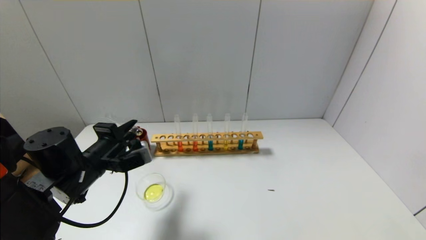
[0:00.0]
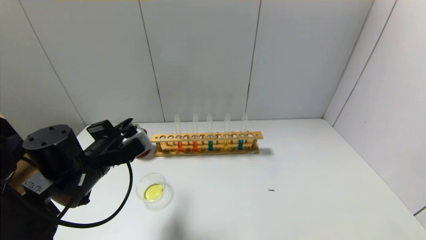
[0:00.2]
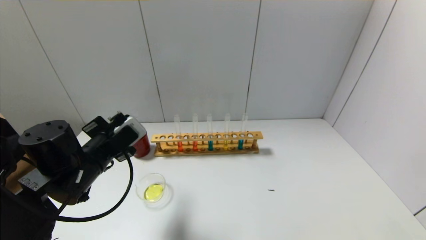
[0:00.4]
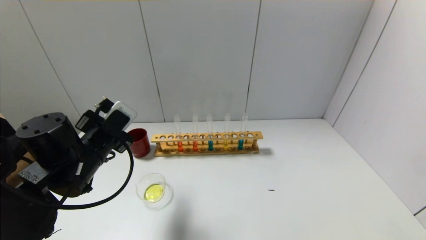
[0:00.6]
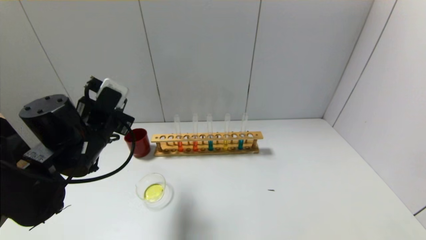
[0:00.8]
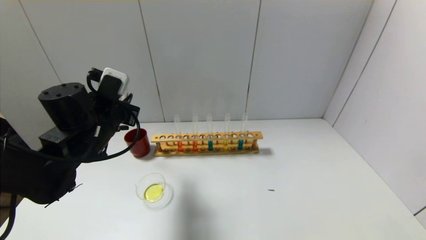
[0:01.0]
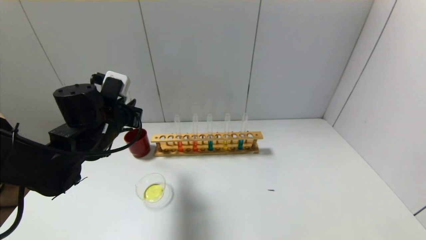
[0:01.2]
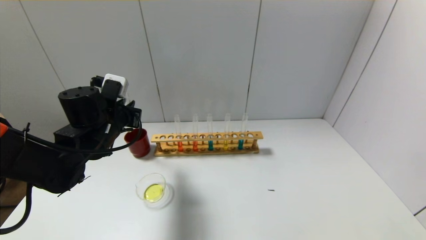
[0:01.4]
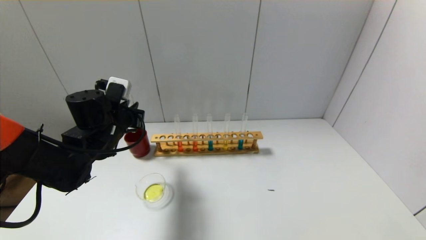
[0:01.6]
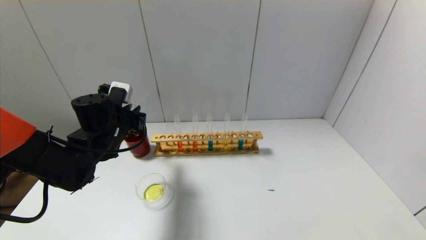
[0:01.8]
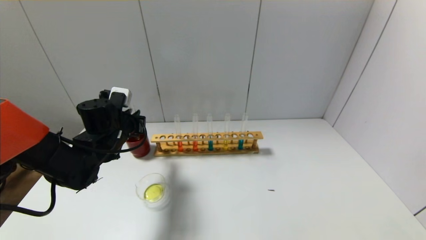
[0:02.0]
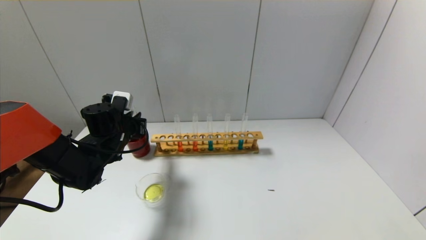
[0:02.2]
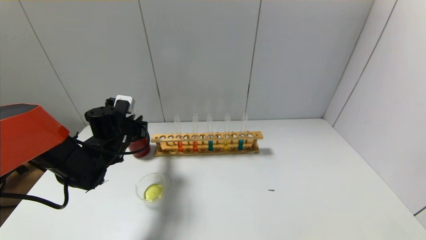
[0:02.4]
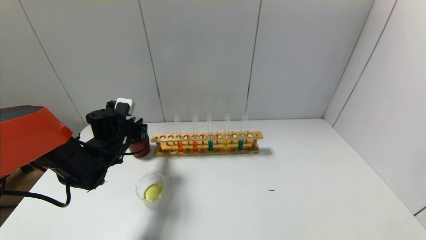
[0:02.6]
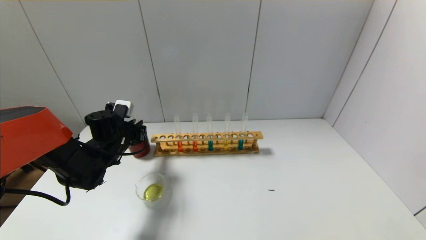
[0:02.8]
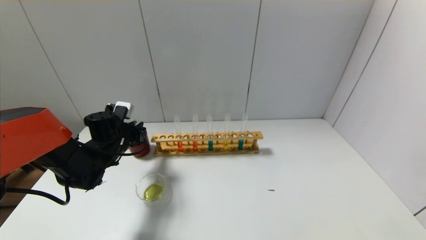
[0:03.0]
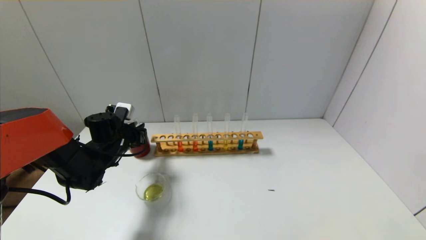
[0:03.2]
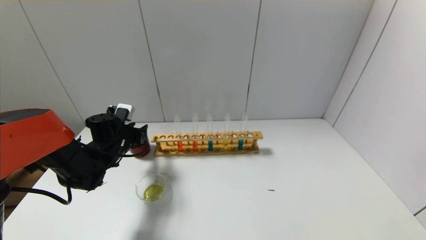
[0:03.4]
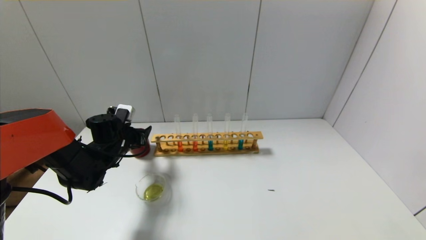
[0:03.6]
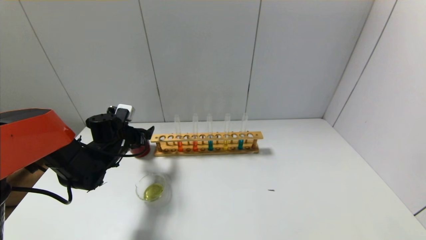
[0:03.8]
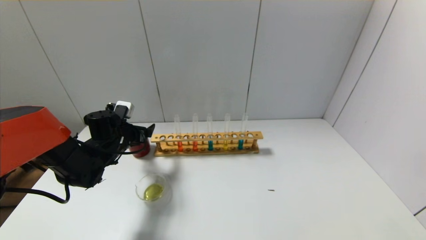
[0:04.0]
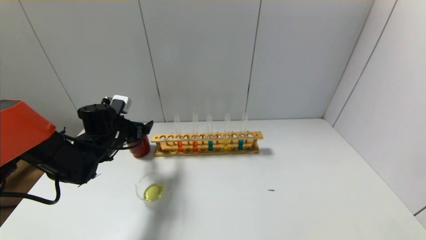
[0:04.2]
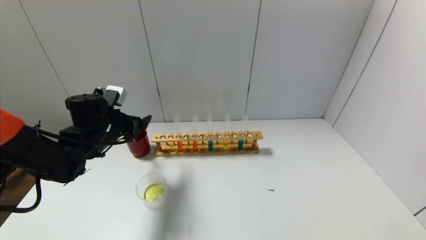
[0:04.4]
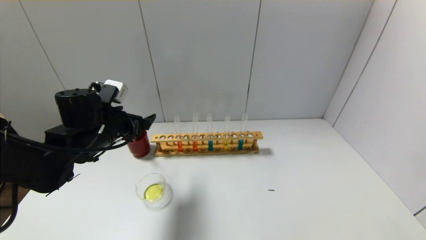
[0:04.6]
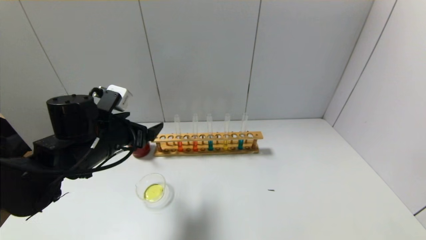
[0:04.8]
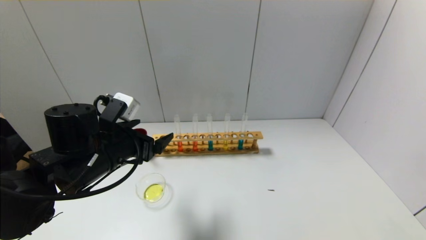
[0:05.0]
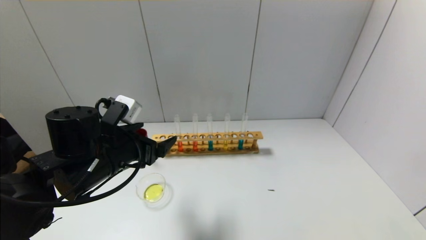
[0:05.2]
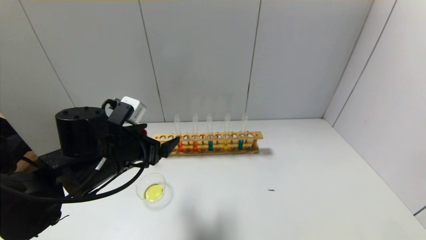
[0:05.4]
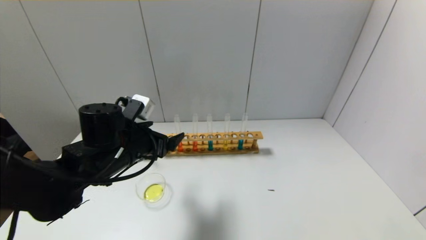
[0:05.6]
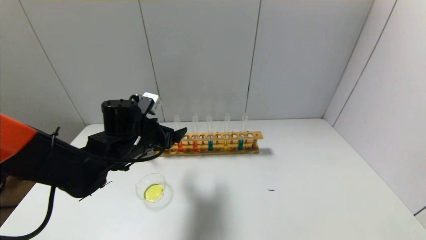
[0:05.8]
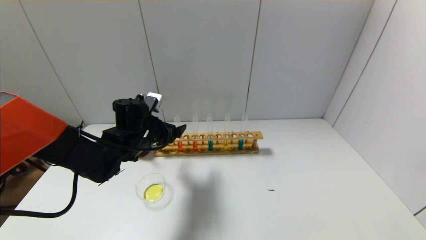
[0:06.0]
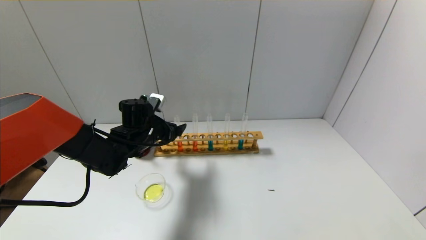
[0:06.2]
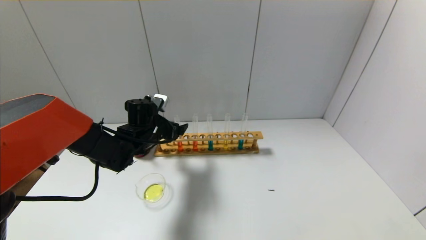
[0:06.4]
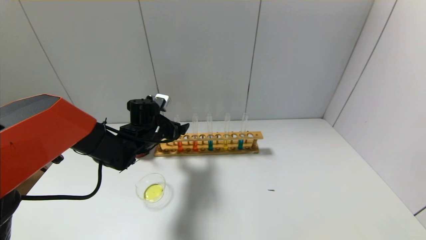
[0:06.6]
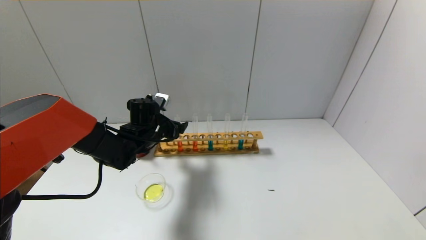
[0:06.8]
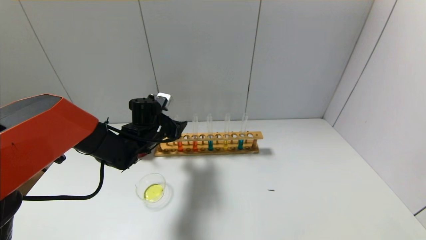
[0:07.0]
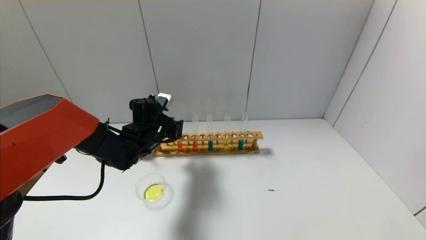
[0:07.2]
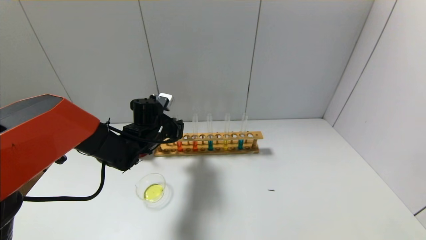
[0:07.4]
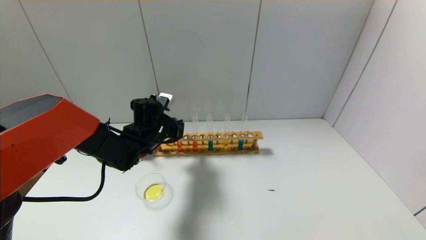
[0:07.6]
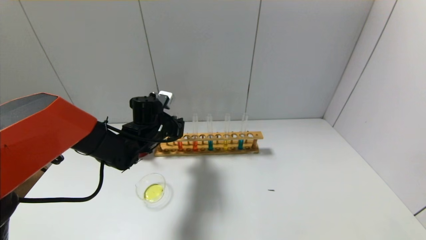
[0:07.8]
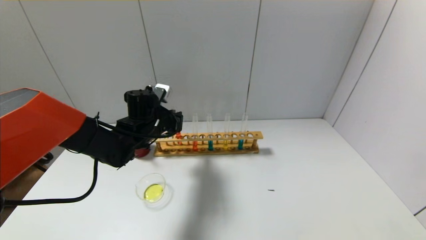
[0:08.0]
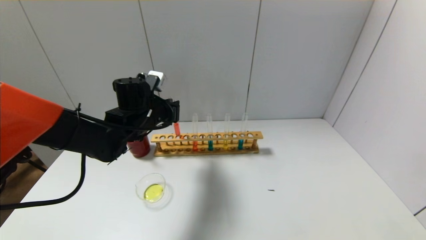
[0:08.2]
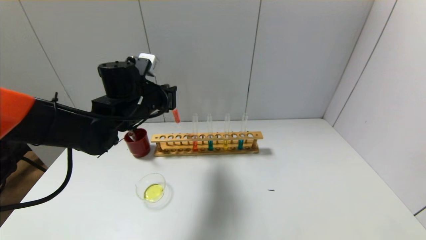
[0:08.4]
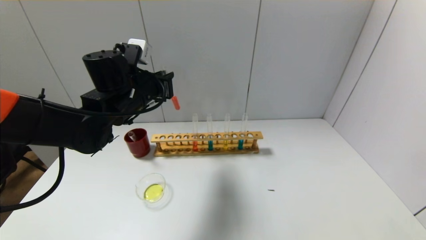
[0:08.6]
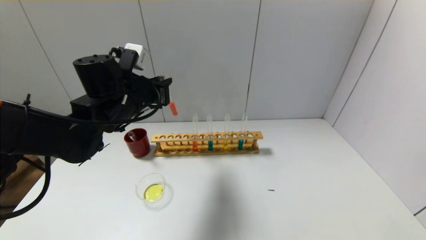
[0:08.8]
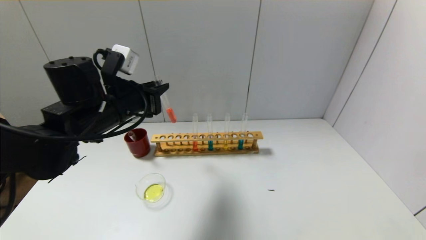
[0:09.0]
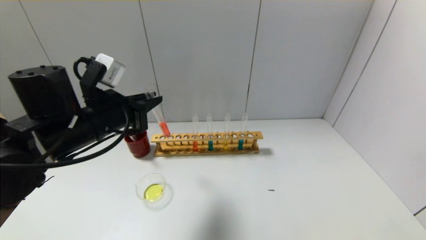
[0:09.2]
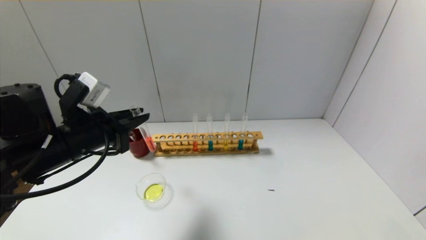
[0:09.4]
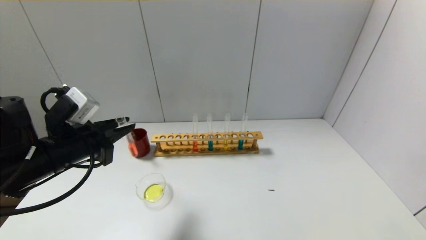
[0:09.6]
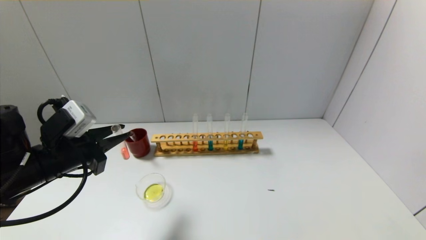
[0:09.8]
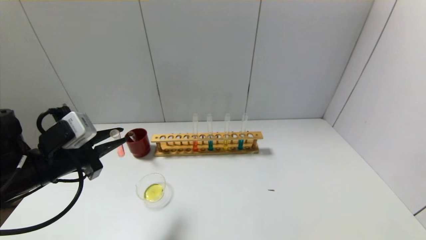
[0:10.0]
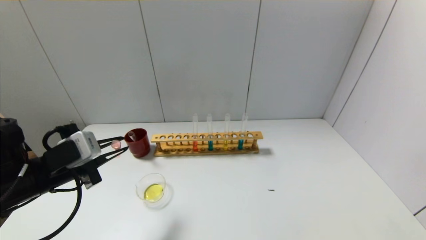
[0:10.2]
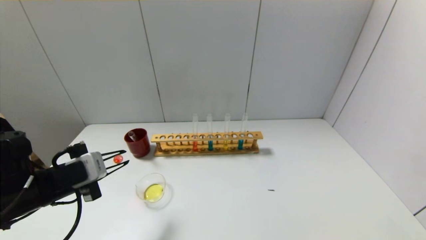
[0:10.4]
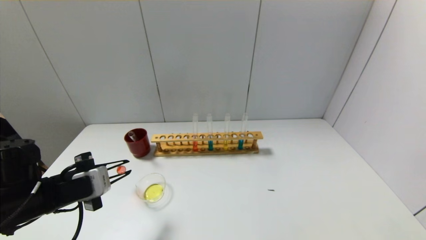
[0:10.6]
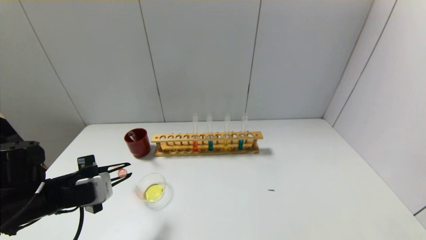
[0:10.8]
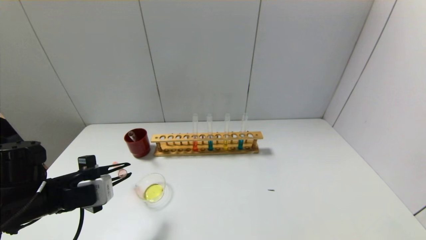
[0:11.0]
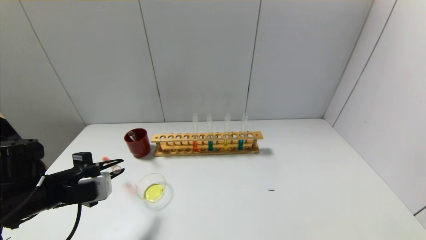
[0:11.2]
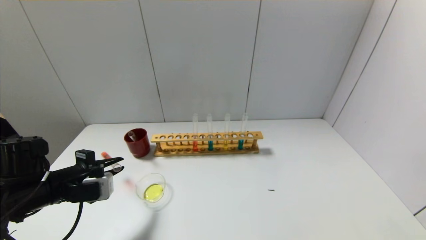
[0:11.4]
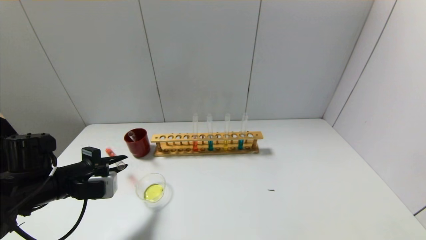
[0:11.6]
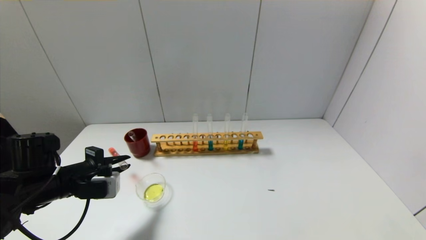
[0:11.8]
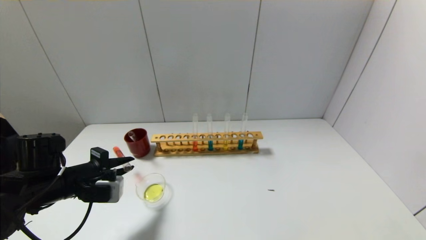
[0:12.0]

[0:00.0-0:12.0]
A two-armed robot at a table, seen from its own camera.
Step, 0:00.0 to 0:03.4: Place the test tube into the brown cup with the left gripper.
Step, 0:03.6 to 0:07.4: Grasp the red reagent with the left gripper.
0:00.0 to 0:01.6: The left gripper is displaced forward by roughly 5 cm.
0:01.6 to 0:03.0: The left gripper heads downward, covering approximately 10 cm.
0:03.0 to 0:04.4: The left gripper shifts roughly 5 cm upward, and opens its fingers.
0:04.4 to 0:06.0: The left gripper is displaced to the right by about 10 cm, and travels backward and back again, some 10 cm each way.
0:06.0 to 0:07.6: The left gripper closes up.
0:07.6 to 0:09.0: The left gripper goes some 15 cm upward and backward.
0:09.0 to 0:10.4: The left gripper travels backward, to the left and downward by roughly 15 cm.
0:10.4 to 0:12.0: The left gripper shifts by approximately 5 cm.

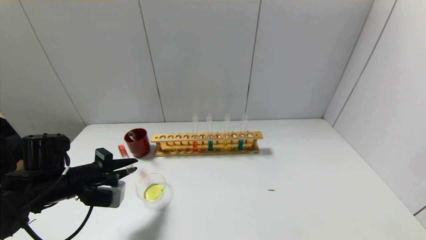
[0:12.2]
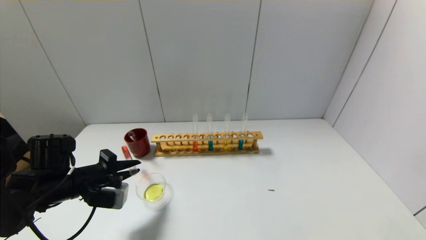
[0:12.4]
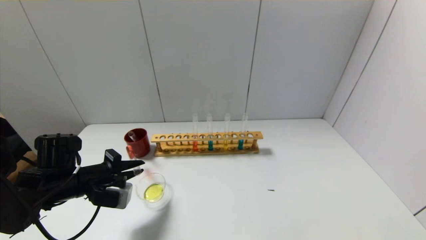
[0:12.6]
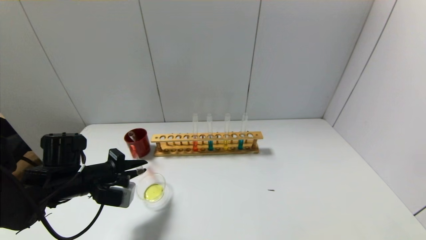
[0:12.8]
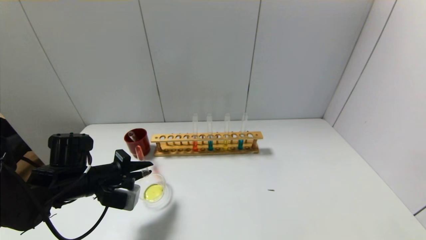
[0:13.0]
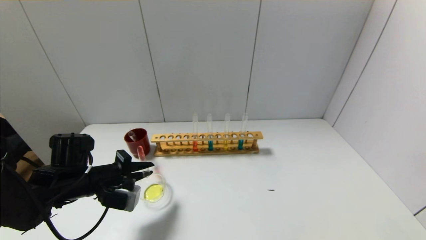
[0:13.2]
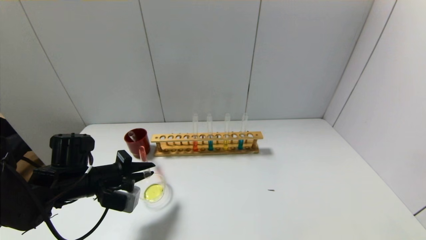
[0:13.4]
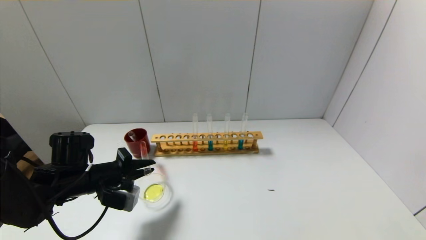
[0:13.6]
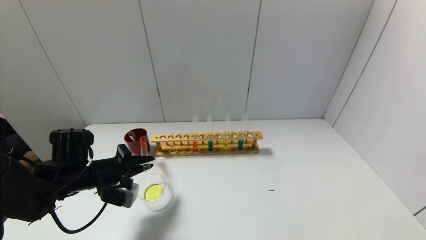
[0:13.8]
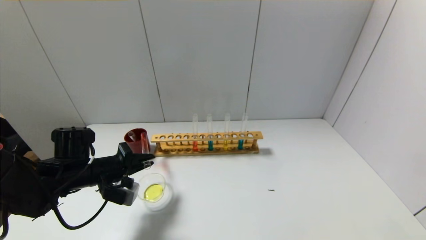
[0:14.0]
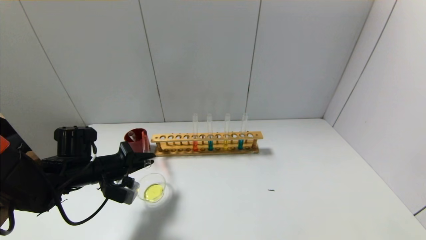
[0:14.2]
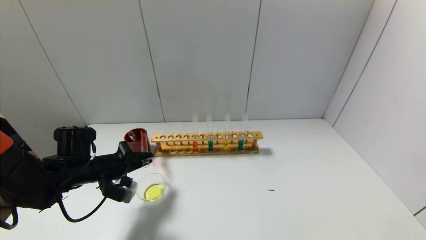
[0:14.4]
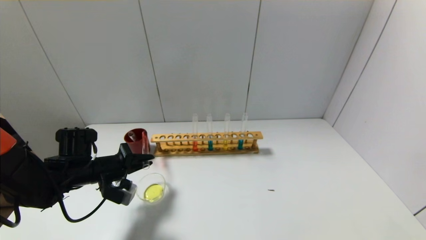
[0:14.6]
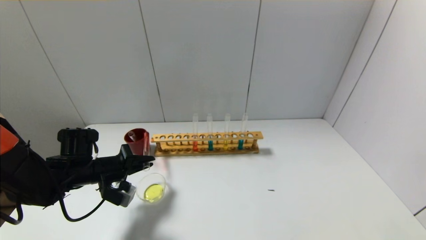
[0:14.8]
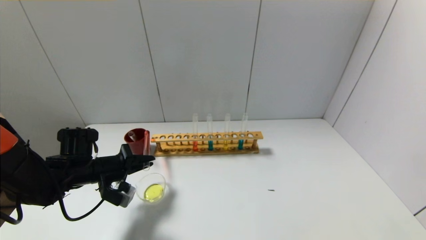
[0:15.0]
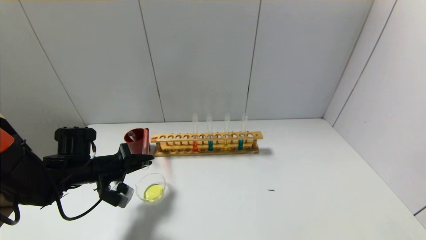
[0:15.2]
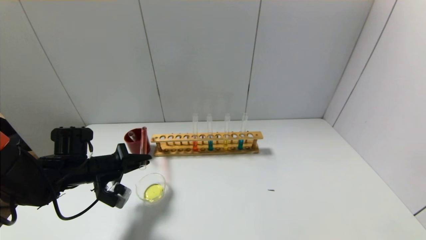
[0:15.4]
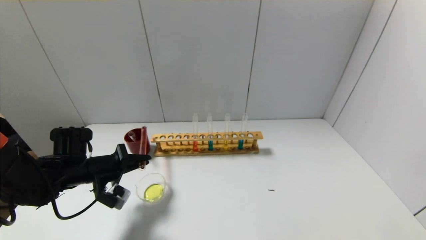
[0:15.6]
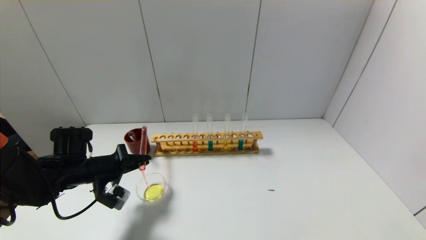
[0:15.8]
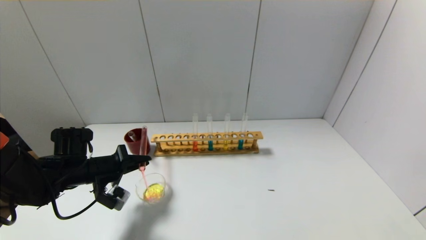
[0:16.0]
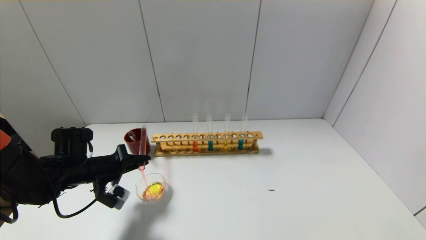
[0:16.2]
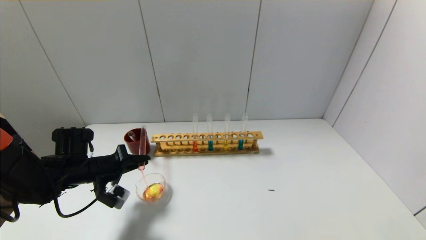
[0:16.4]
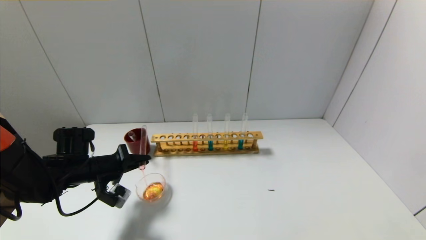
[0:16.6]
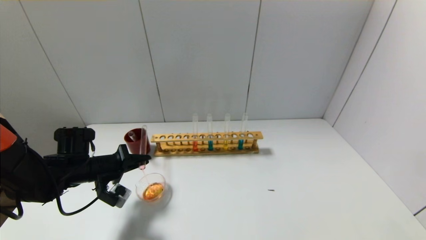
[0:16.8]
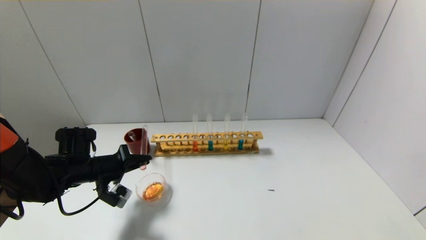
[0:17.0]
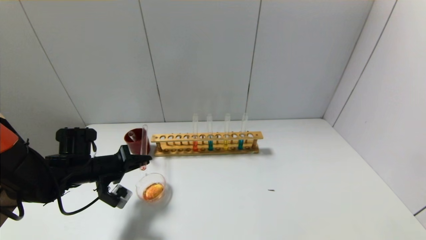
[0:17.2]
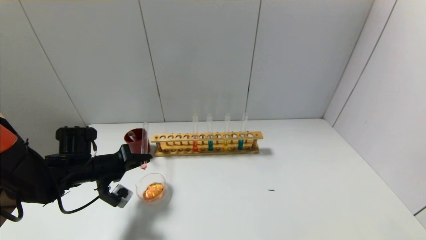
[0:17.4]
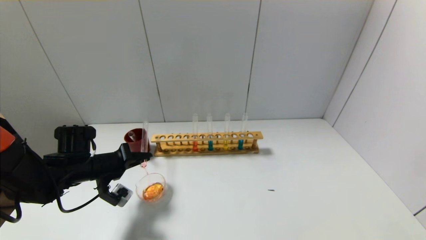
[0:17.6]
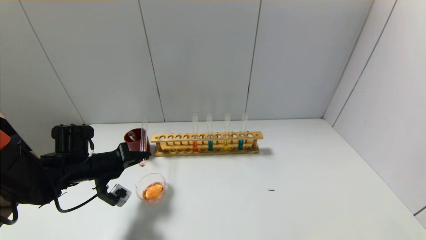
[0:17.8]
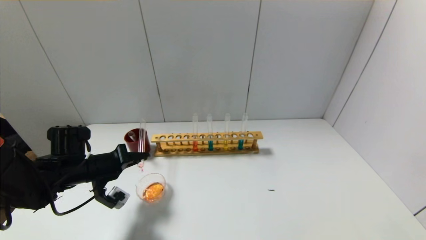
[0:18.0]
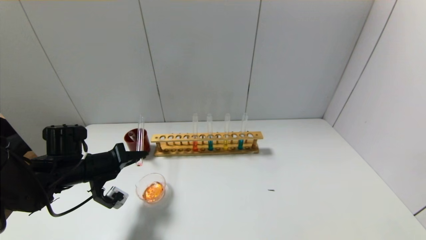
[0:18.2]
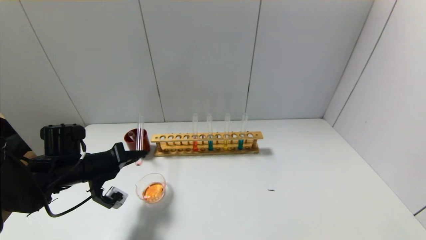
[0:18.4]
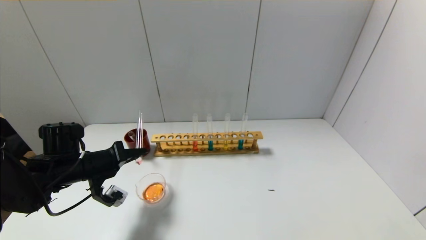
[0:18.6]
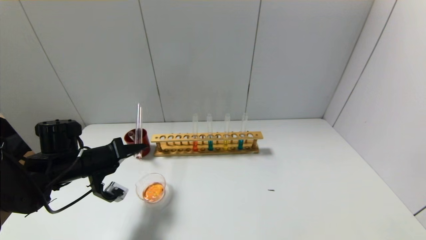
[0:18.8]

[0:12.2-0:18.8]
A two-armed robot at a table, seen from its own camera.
0:12.2 to 0:13.8: There are only small adjustments of the grippers.
0:13.8 to 0:15.4: The grippers stay close to where they were, moving slightly.
0:15.4 to 0:17.2: The grippers move only a little.
0:17.2 to 0:18.8: The grippers move only a little.
